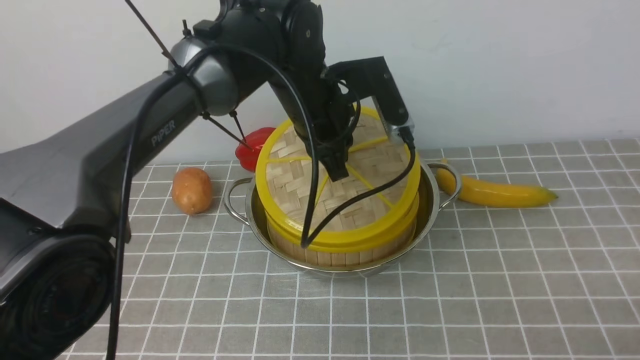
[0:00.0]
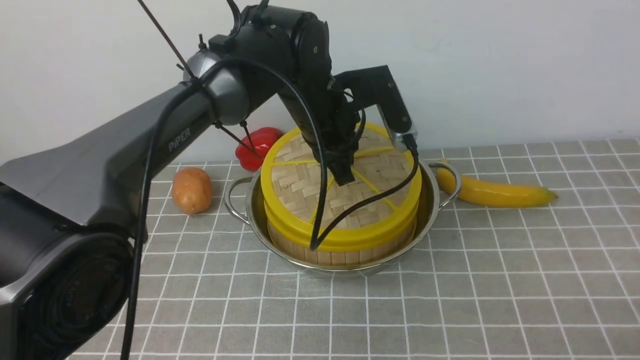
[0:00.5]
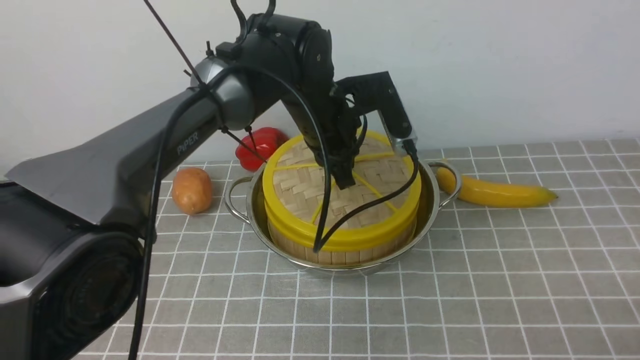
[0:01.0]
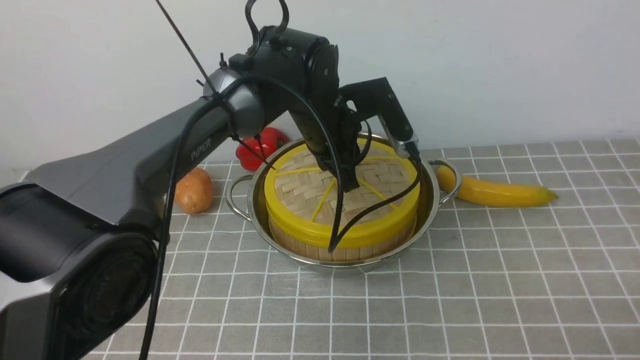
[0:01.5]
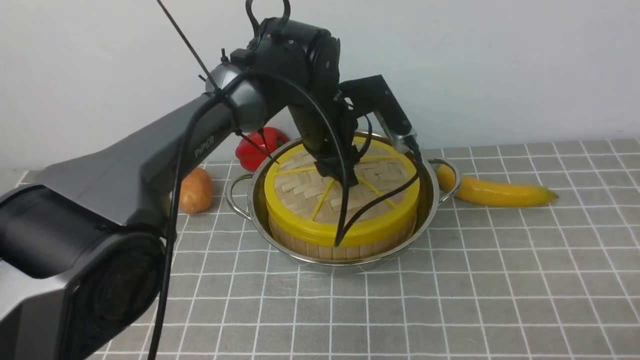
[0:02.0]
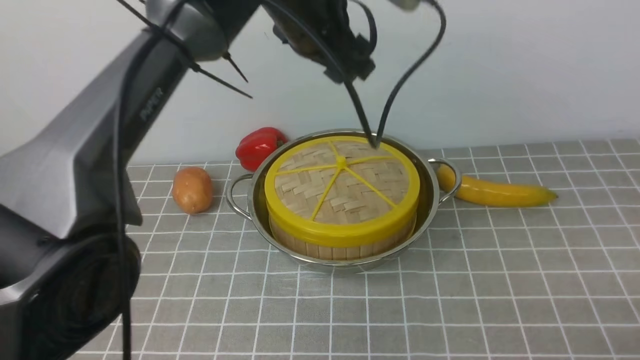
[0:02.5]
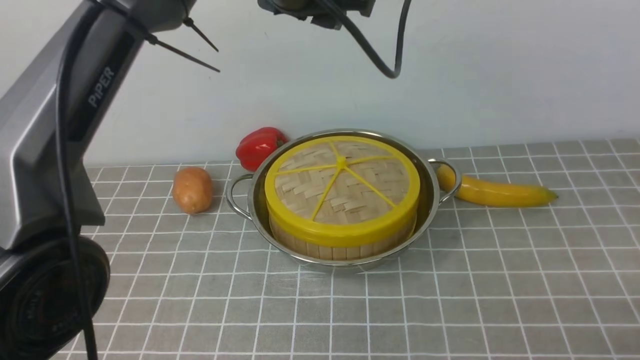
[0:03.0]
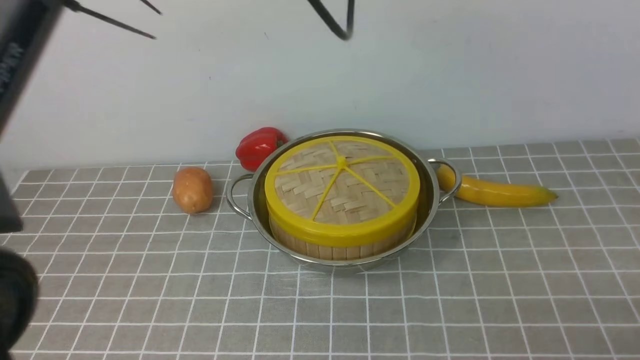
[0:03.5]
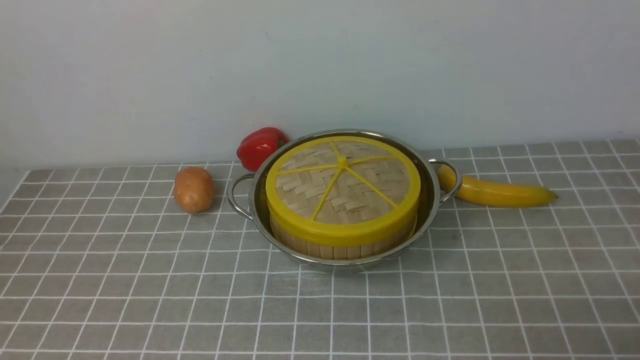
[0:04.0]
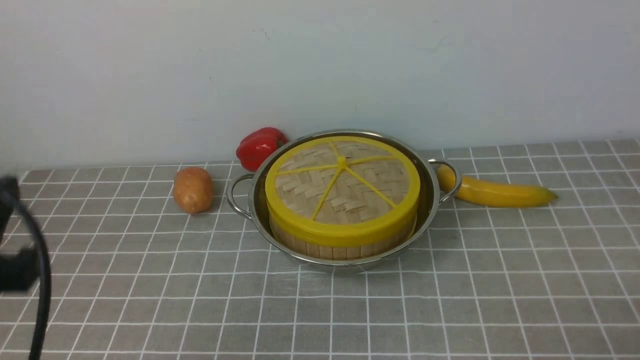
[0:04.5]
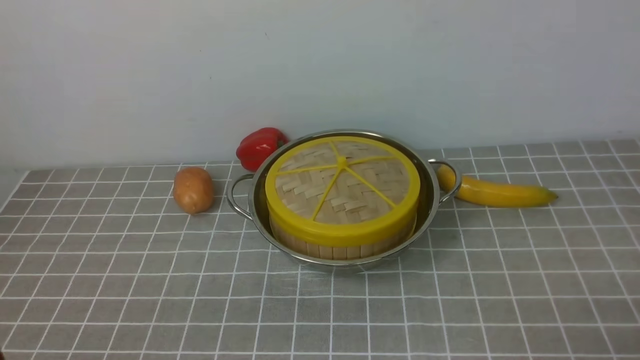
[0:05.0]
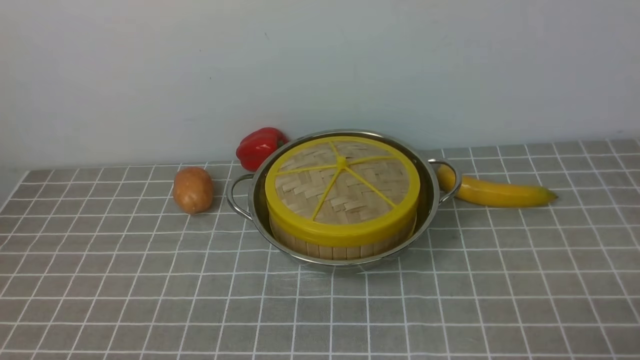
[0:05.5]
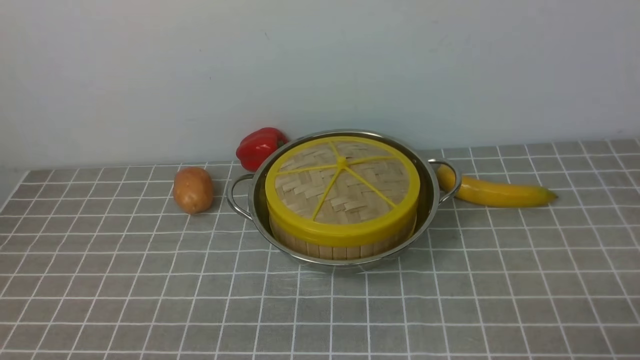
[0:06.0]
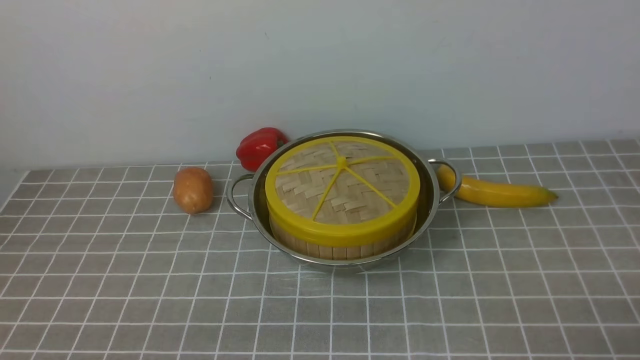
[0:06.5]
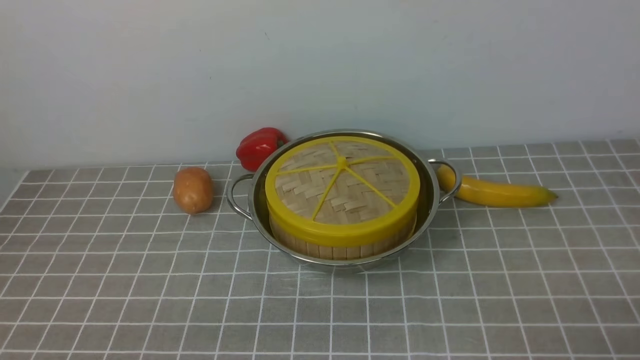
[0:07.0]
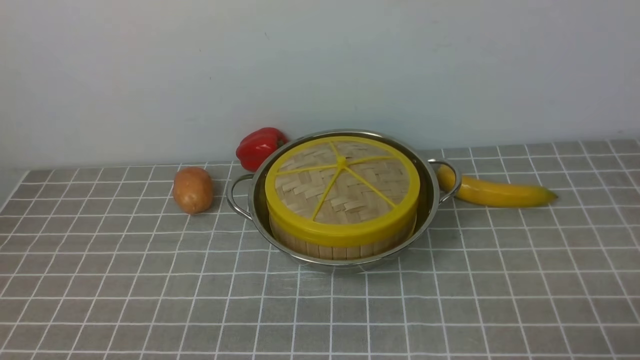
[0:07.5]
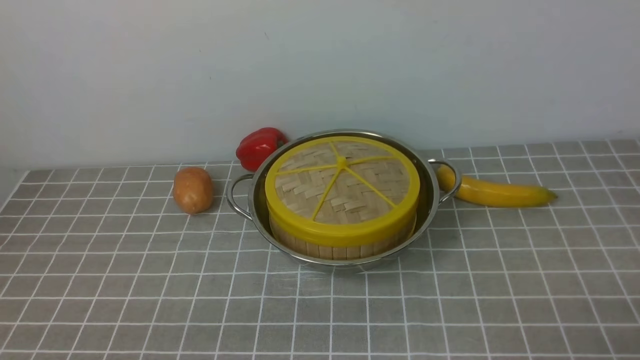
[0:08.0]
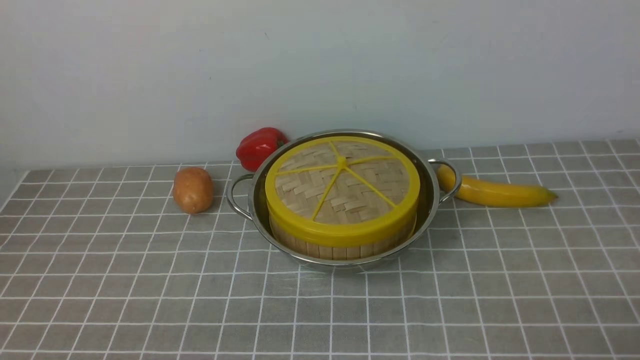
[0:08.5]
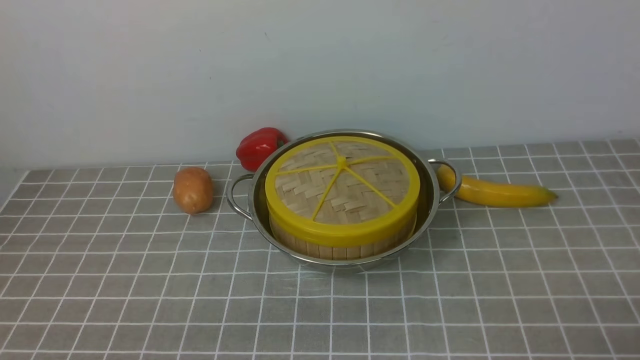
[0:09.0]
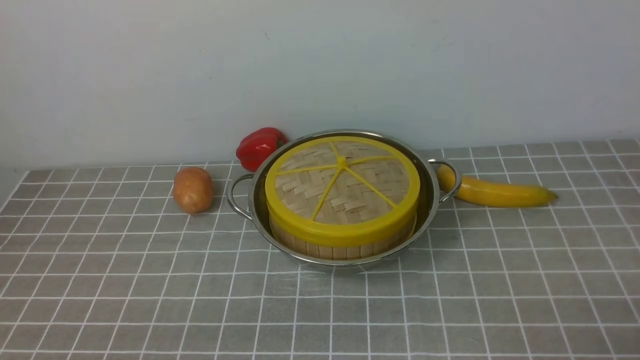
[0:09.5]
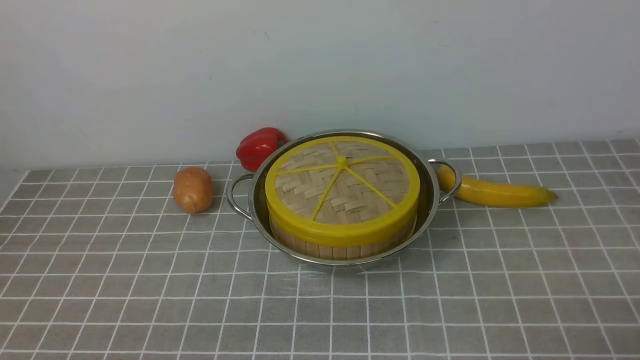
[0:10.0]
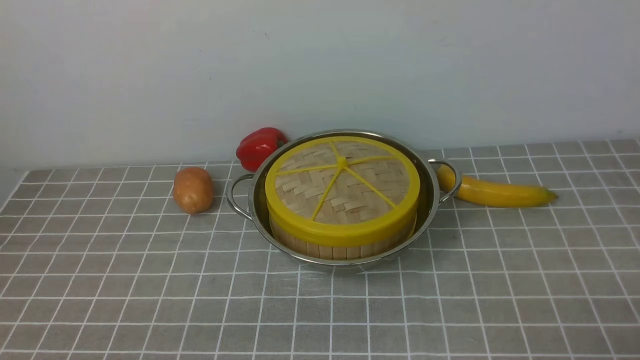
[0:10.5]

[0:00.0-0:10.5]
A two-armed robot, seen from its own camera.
Task of the whole recording: place the steamer in the pot on the grey tablecloth, and put the lid on the steamer.
Step, 0:00.0 to 0:02.0: use the left arm to place the steamer lid on the steamer.
0:00.0 to 0:02.0: The left gripper opens.
0:02.0 to 0:04.0: The left gripper heads upward, backward and to the left, covering approximately 40 cm, and opens, then closes again.
0:06.5 to 0:10.5: The two grippers keep their place.

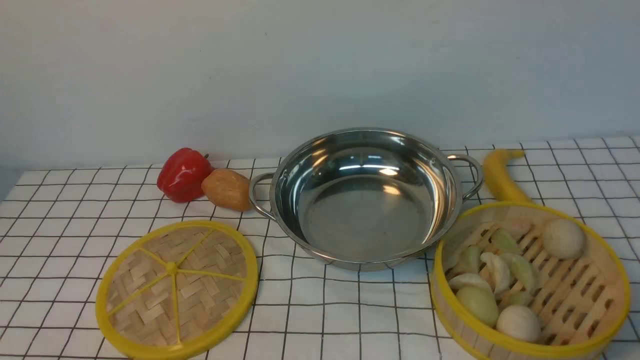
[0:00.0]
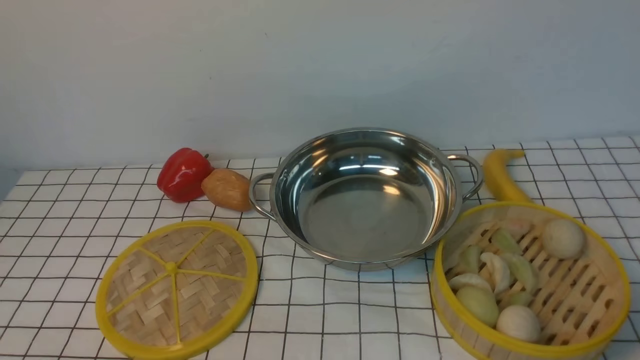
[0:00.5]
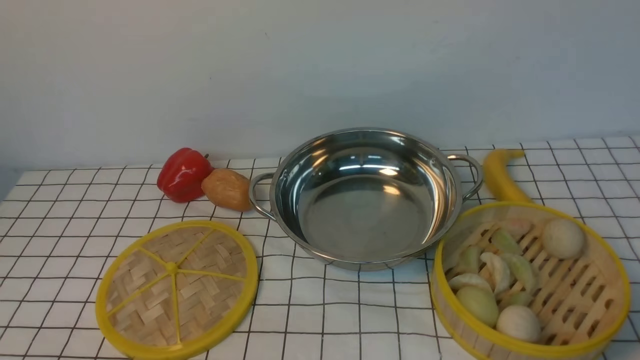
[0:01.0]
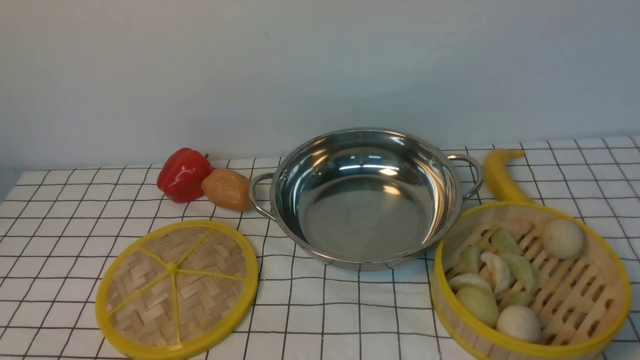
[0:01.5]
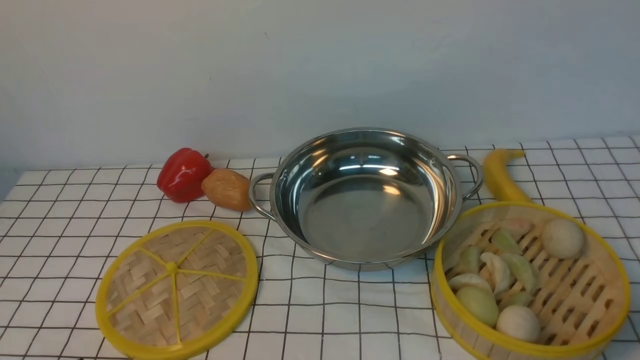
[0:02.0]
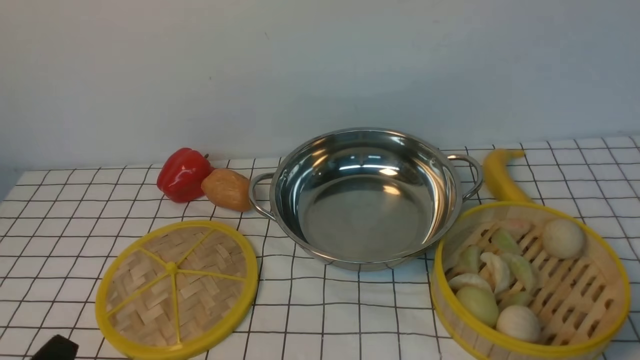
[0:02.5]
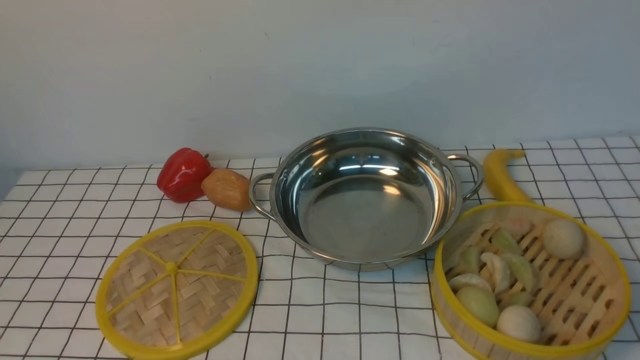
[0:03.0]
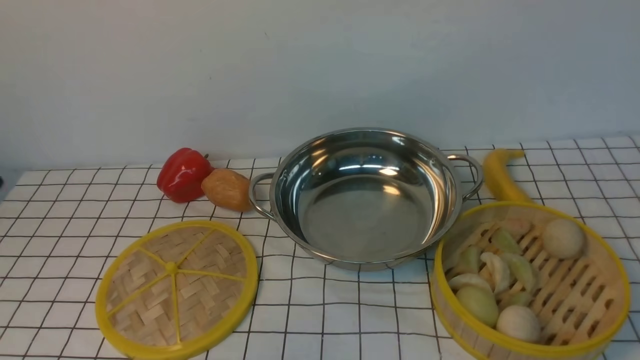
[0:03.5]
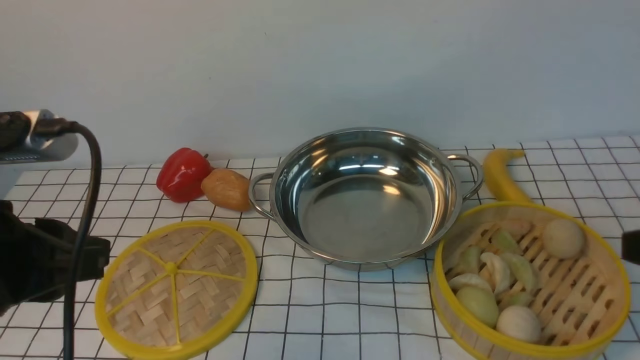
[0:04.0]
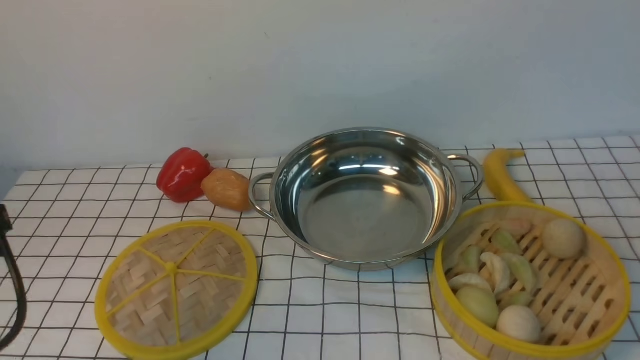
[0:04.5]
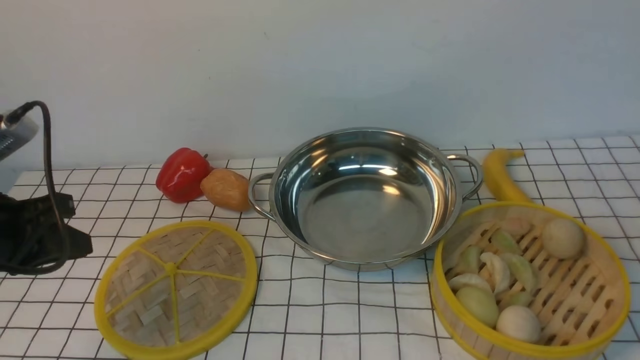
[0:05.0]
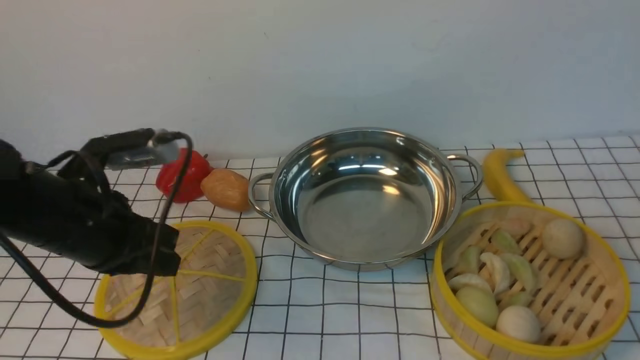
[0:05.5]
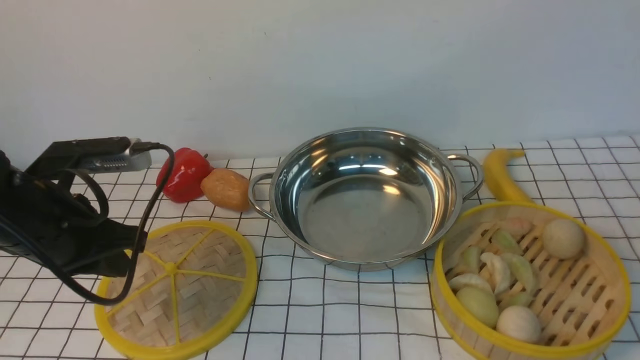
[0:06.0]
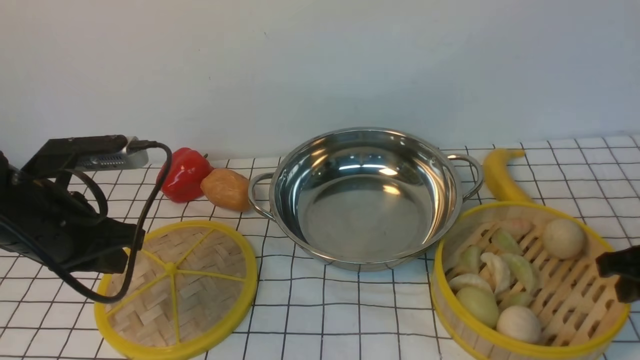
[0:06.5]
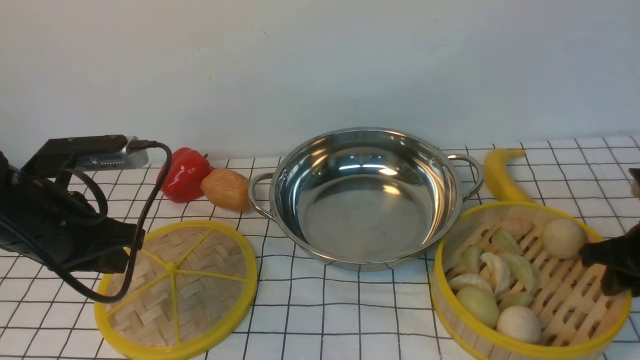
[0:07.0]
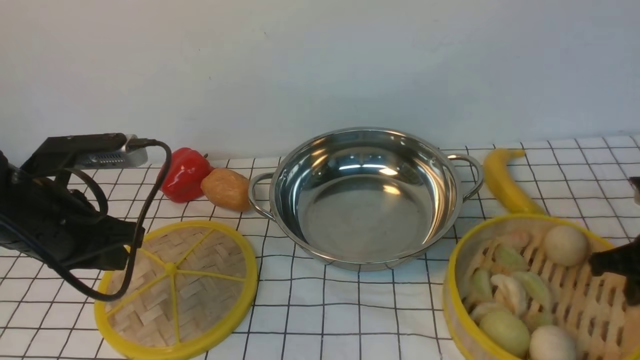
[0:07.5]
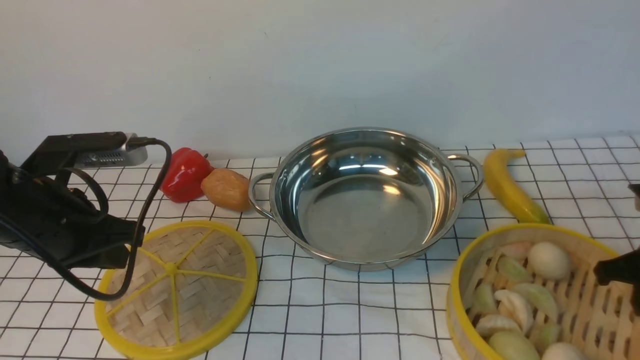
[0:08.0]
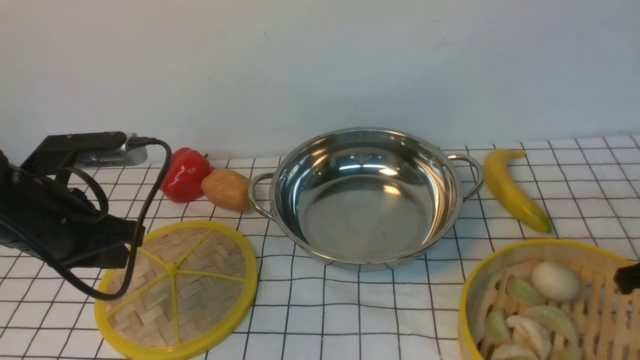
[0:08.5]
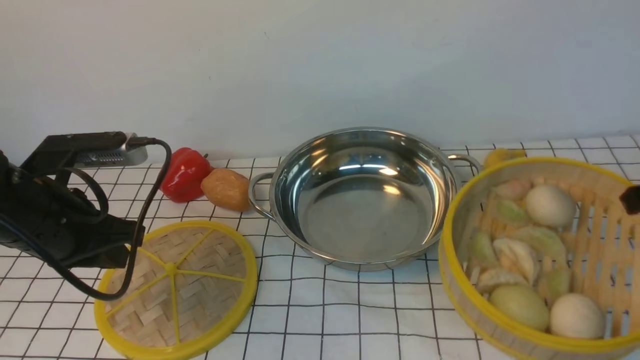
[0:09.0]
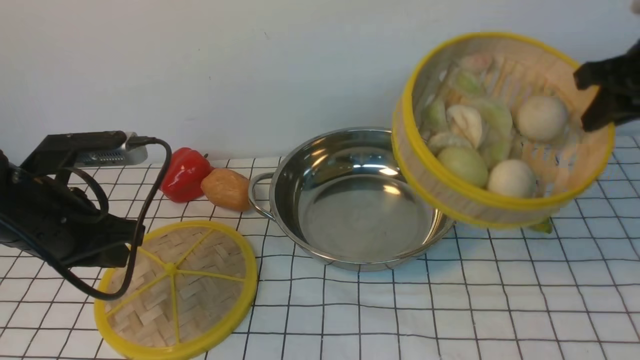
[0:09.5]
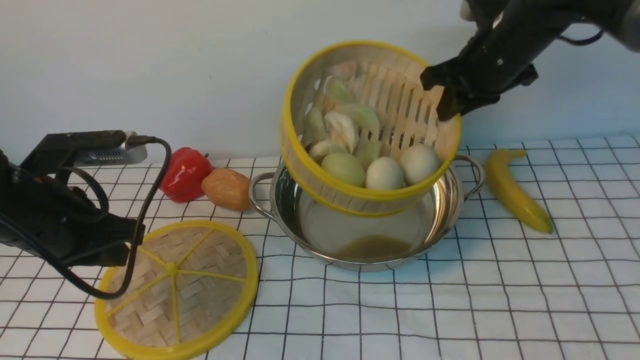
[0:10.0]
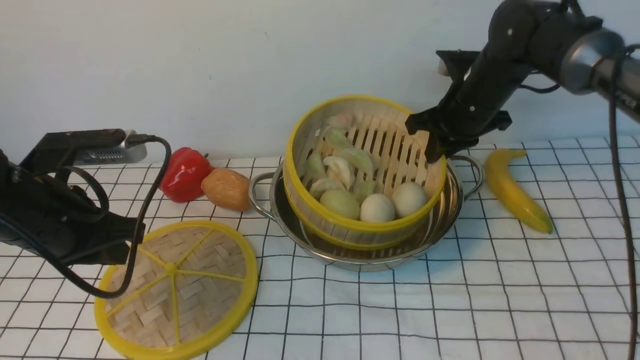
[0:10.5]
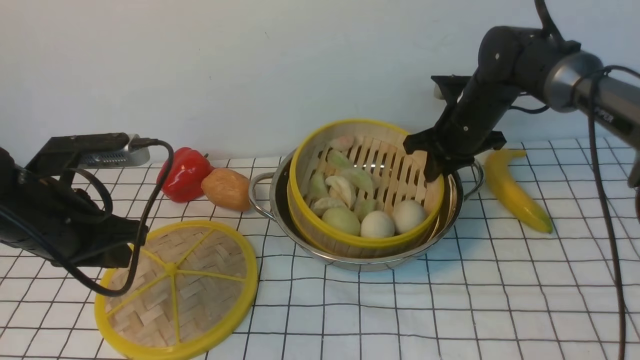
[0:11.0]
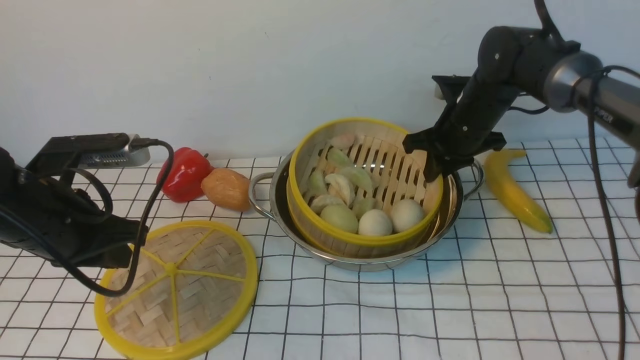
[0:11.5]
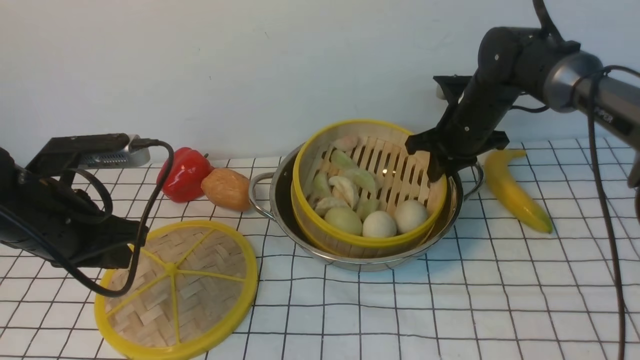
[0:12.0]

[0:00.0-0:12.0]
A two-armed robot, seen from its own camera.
Task of the whole recording: place the steamer in the pot on the white tablecloth, and put the lid on the steamer.
Step, 0:00.0 to 0:08.5: use the right arm to lift the steamer closest to it.
0:02.0 to 0:04.0: The two grippers go roughly 15 cm upward and forward. The left gripper closes its fingers.
0:04.0 to 0:06.0: The right gripper heads forward and downward, covering about 10 cm; the left gripper is displaced forward and downward by approximately 15 cm, and closes up.
0:06.0 to 0:08.0: The right gripper travels downward and forward by some 10 cm, and closes.
0:08.0 to 0:10.0: The right gripper travels forward, to the left and upward by about 25 cm.
0:10.0 to 0:12.0: The right gripper heads downward, covering roughly 10 cm.
